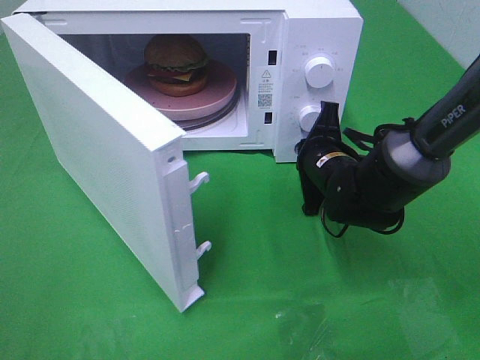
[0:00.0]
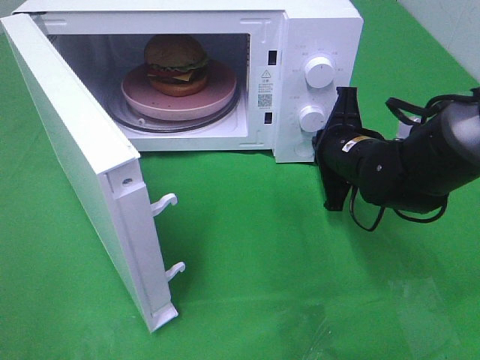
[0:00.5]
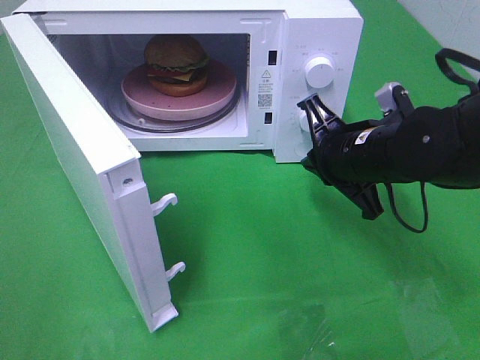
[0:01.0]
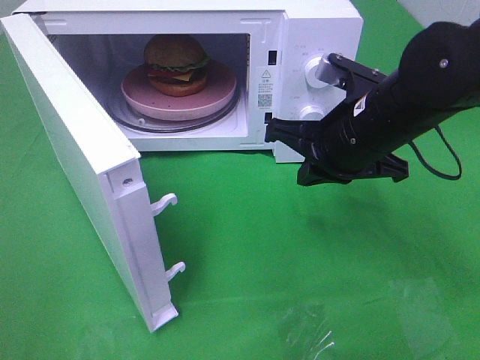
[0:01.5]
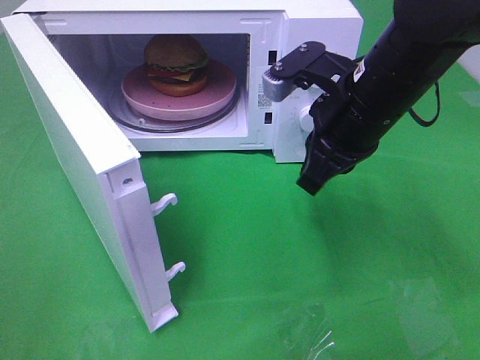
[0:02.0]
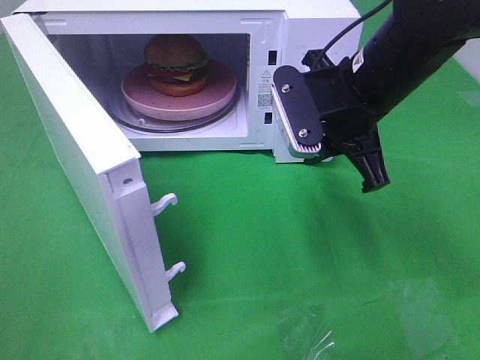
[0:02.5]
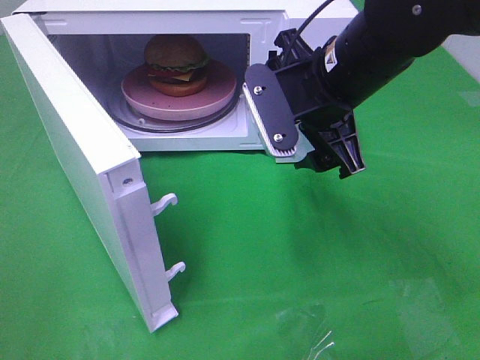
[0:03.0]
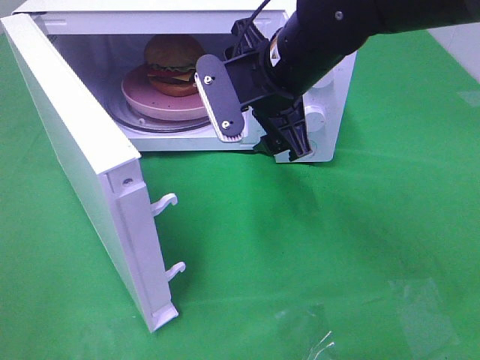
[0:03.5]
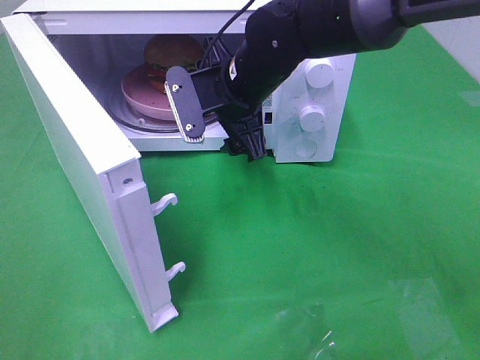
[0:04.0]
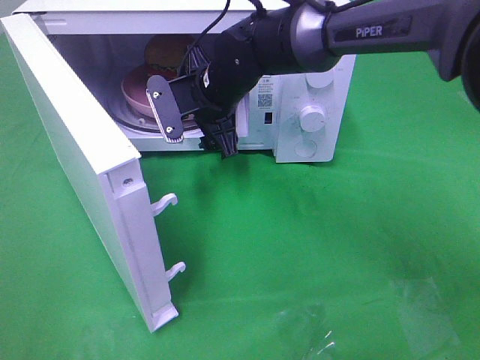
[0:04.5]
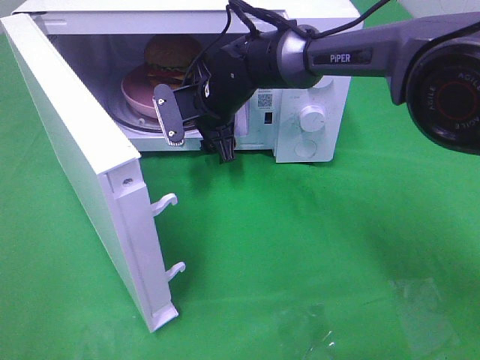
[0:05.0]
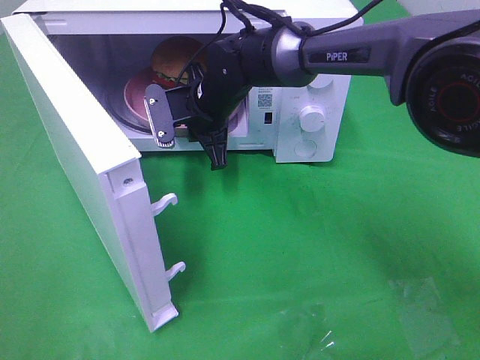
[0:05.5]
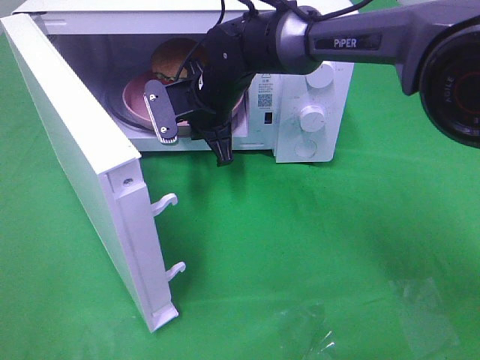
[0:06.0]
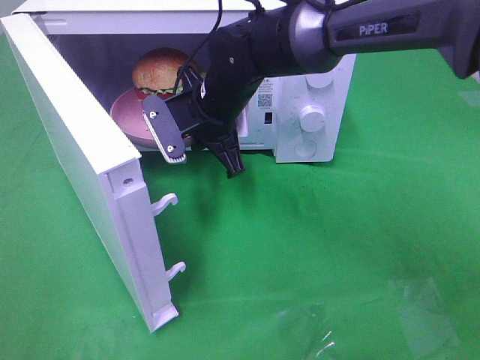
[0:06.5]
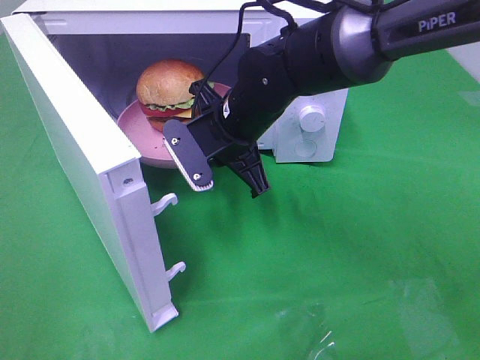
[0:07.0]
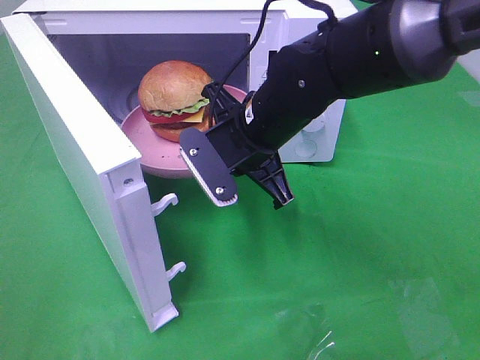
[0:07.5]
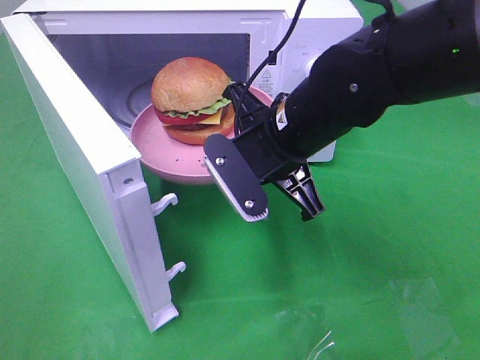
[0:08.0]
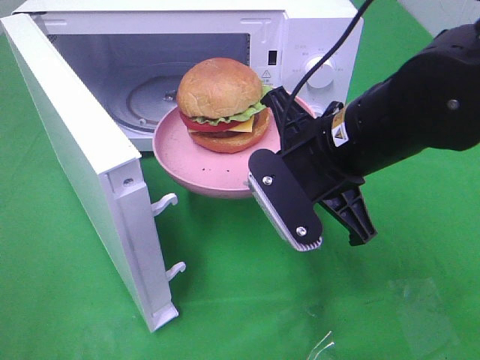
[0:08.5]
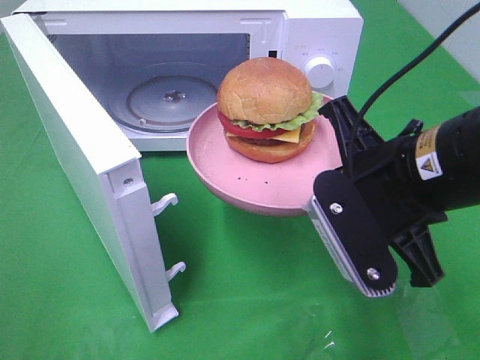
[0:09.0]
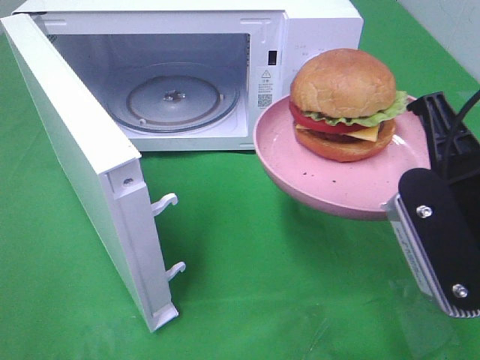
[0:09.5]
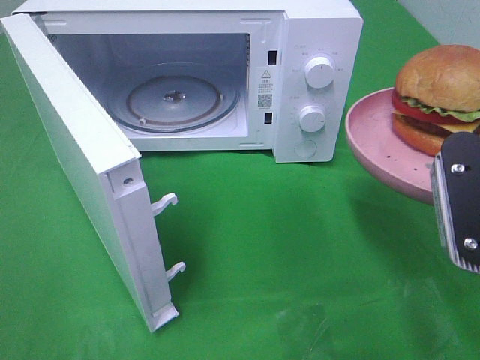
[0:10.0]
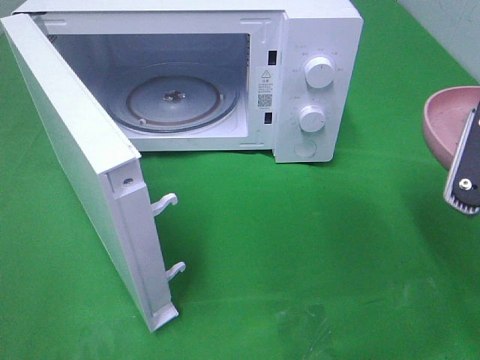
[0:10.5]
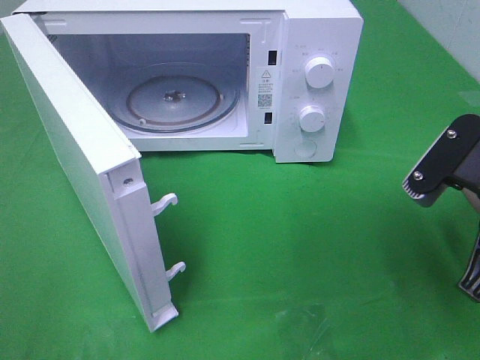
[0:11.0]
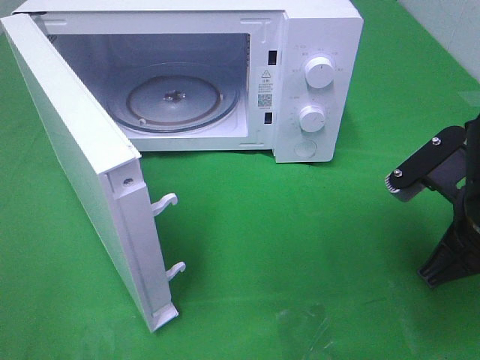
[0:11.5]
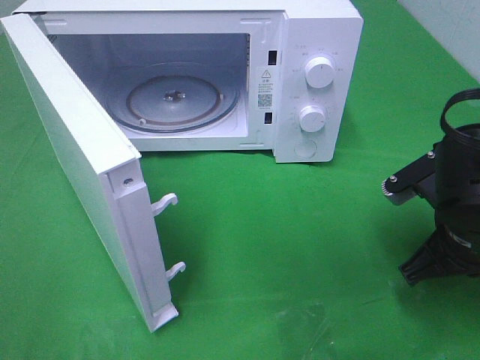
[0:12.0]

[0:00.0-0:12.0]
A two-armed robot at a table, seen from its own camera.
Task of the whole recording: Heat the burger.
Step, 0:01.5 to 0:05.5: Right hand: grab the plate with the hamburger.
0:00.0 to 0:02.0: The right gripper moves upward and backward, approximately 15 cm.
0:02.0 to 0:04.0: The right gripper moves to the left and forward, some 15 cm, and opens its fingers.
0:04.0 to 0:06.0: The right gripper moves roughly 5 cm, and closes up.
0:06.0 to 0:08.0: The right gripper heads backward and to the right, covering roughly 15 cm.
0:08.0 to 0:10.0: The right gripper moves to the right, backward and upward, some 20 cm.
0:10.0 to 0:12.0: The right gripper heads downward and forward, covering about 15 cm.

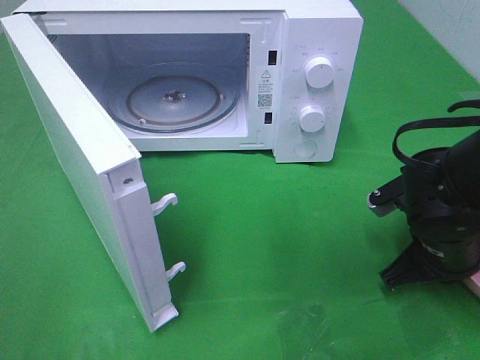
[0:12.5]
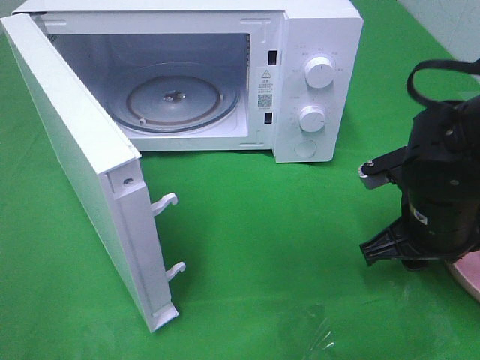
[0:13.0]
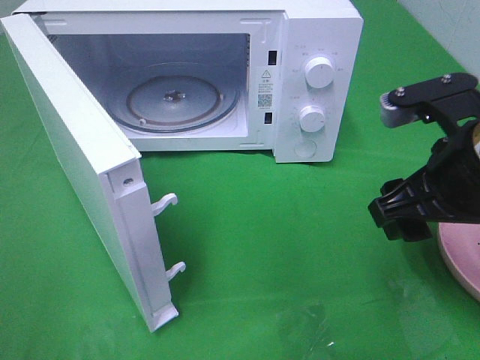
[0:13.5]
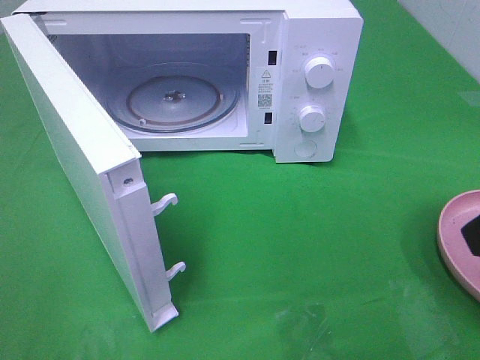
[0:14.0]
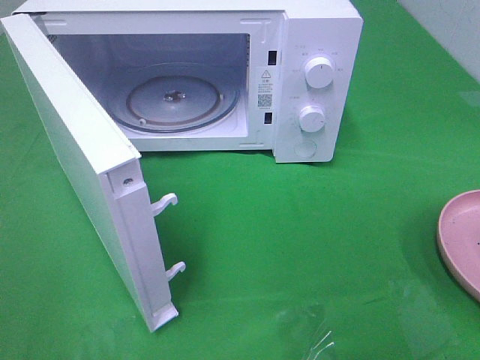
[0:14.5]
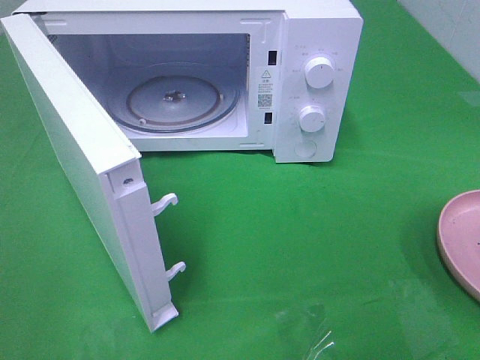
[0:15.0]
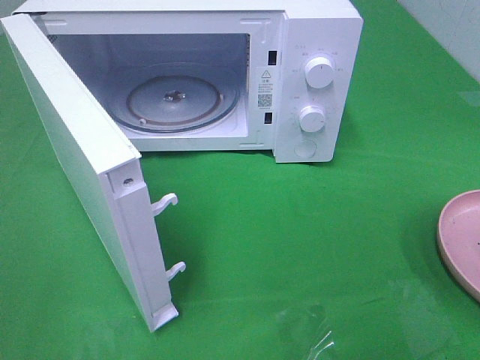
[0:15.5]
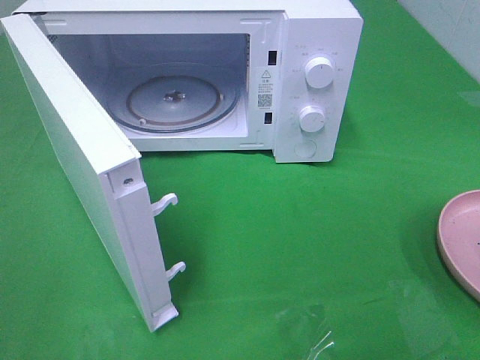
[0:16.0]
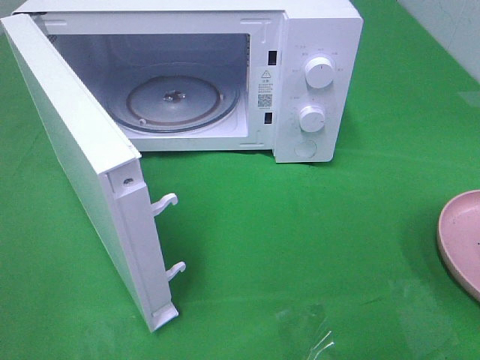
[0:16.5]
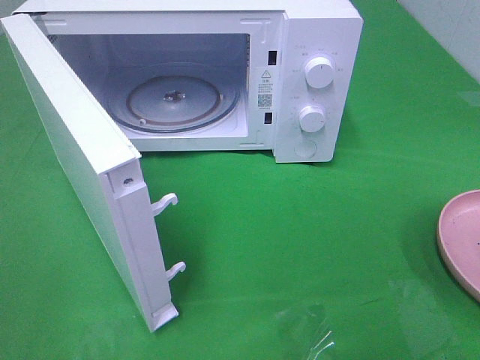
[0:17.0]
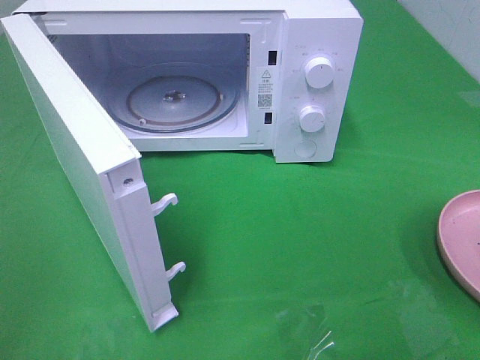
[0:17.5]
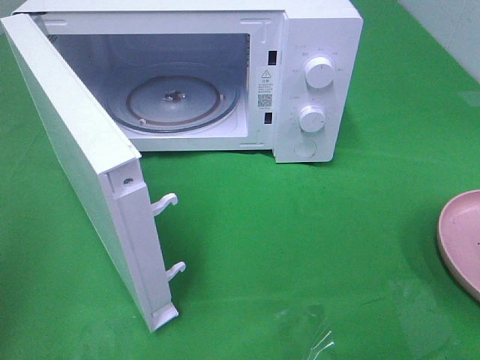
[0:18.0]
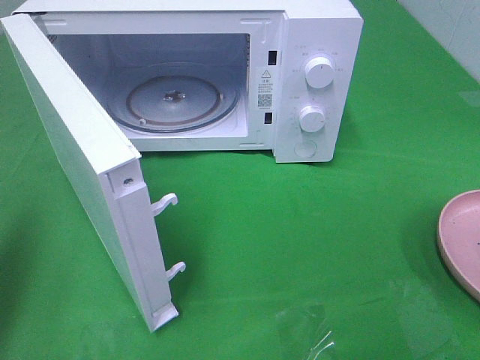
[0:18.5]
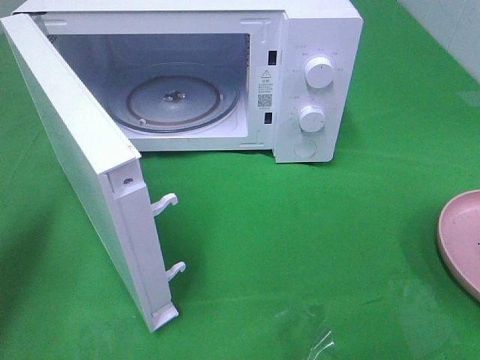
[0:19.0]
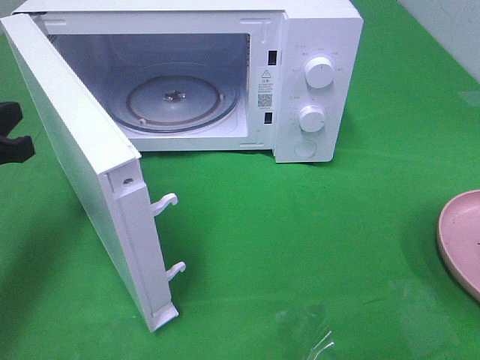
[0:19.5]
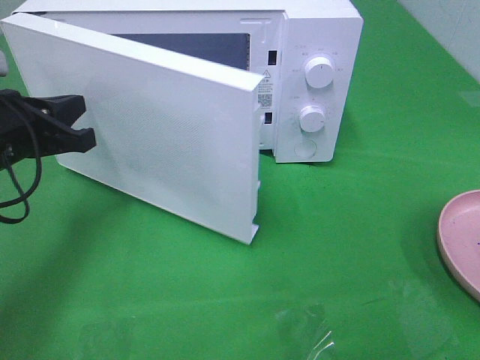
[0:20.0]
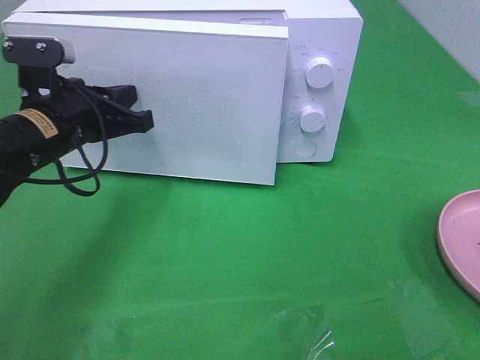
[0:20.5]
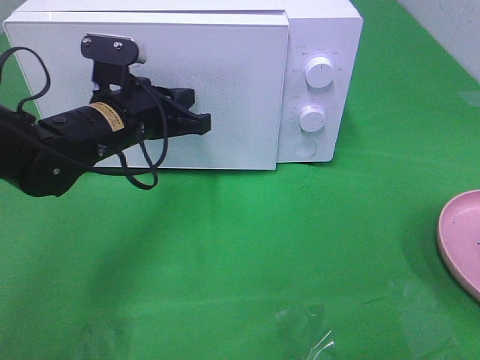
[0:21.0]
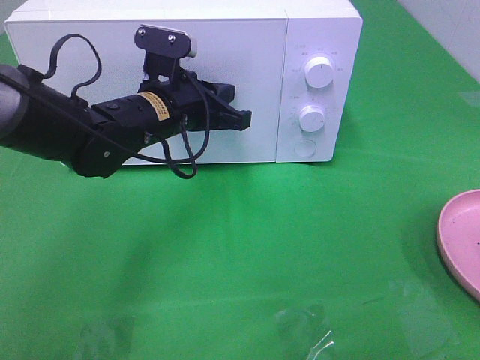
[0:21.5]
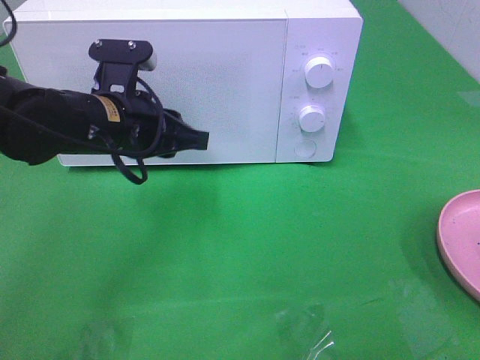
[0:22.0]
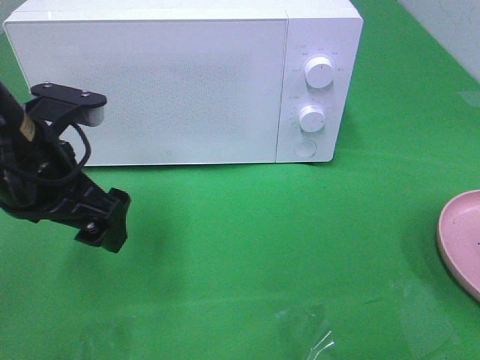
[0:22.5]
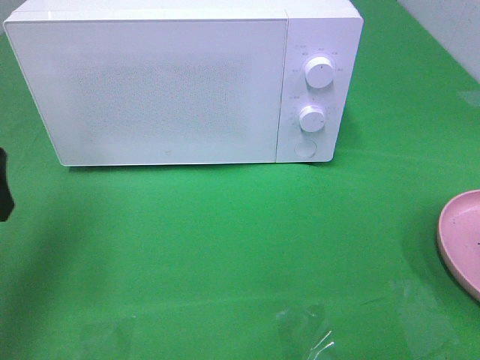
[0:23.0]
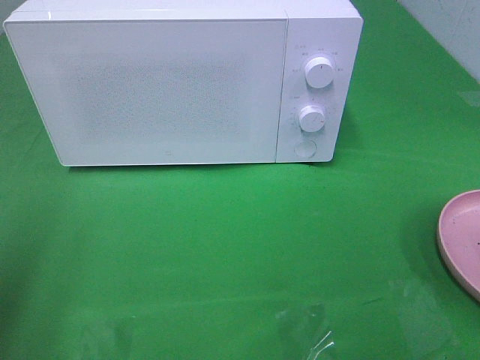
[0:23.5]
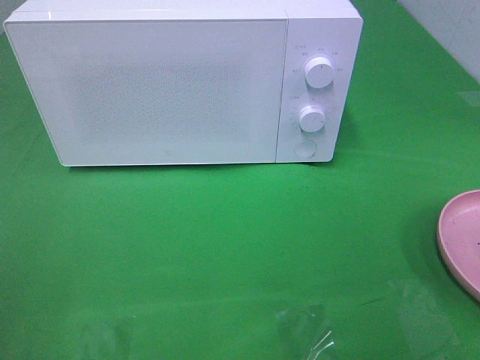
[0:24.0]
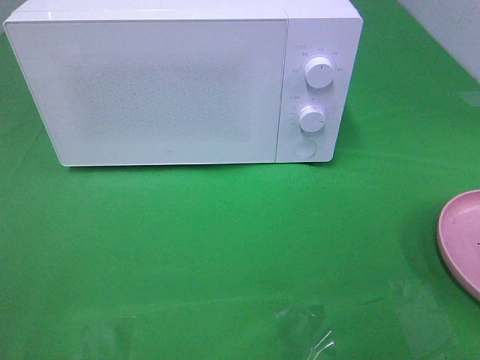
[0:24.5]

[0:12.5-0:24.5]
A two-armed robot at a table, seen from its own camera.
Task of the whole recording: Heat the burger.
Step, 0:13.5 to 0:22.0: Left hand: close the microwave door.
0:12.5 to 0:14.5: The right gripper is displaced upward and backward by approximately 30 cm, and opens its fingers.
0:16.5 to 0:18.5: The left gripper travels forward by roughly 15 cm, and closes up.
0:18.5 to 0:20.5: The left gripper is displaced forward, to the right and downward by approximately 25 cm.
0:20.5 to 0:22.5: The left gripper is displaced backward and upward by approximately 10 cm, and opens.
0:22.5 to 0:24.5: The left gripper goes about 30 cm backward and to the left.

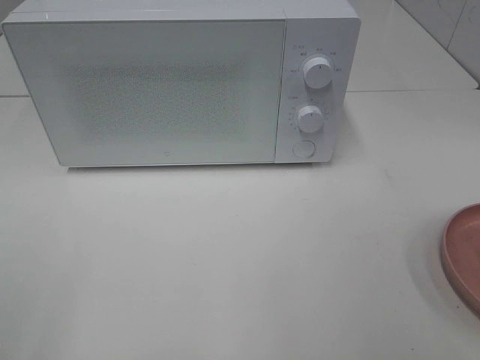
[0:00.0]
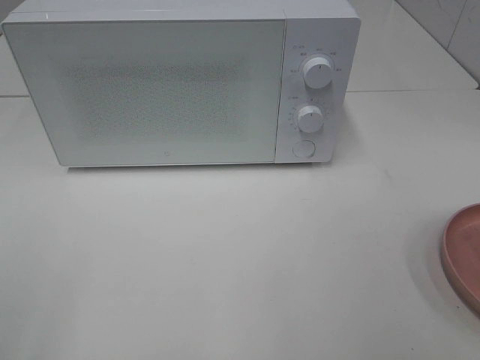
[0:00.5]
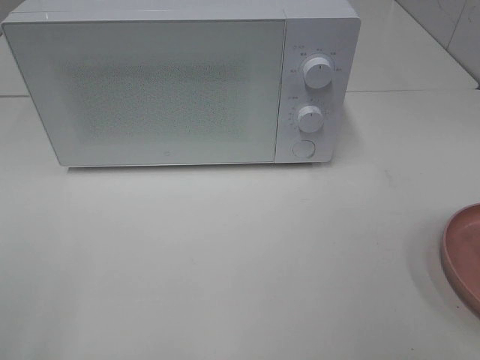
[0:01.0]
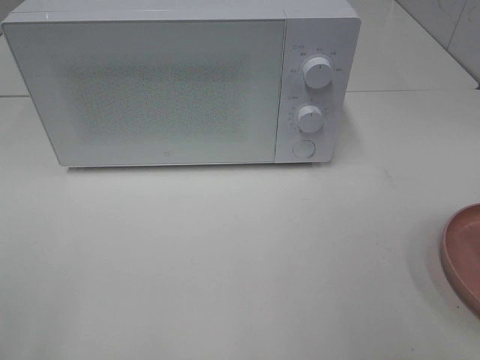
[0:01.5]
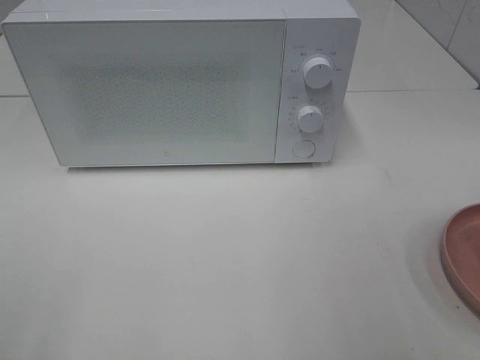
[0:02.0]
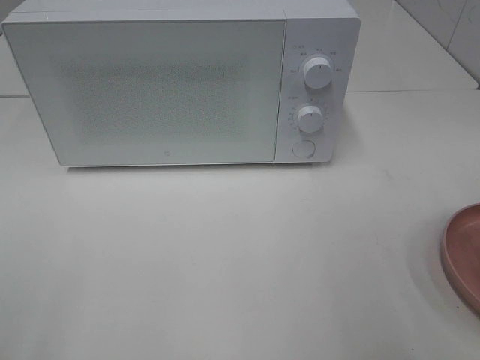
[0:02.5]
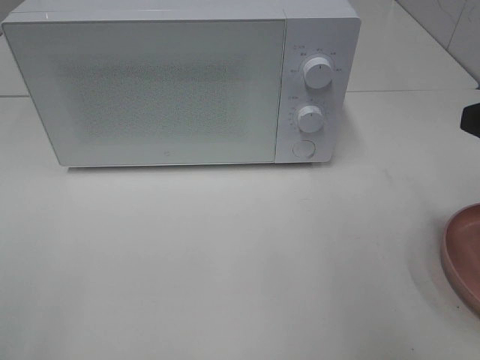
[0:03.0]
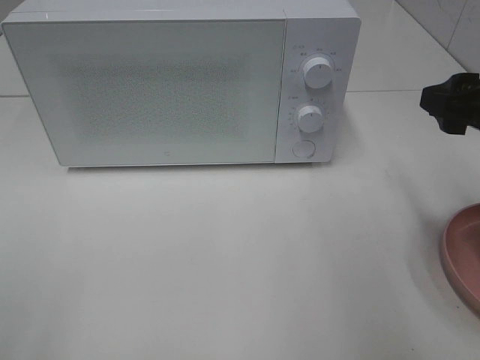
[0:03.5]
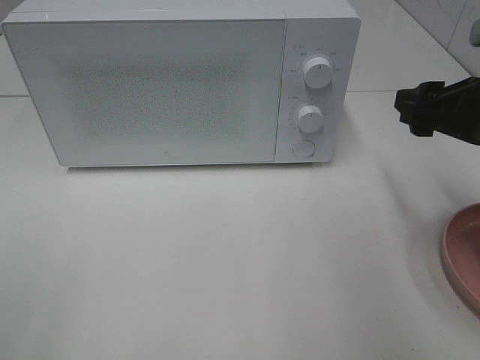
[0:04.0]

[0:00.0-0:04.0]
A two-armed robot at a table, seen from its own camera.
Task of the whole recording: Heat the burger.
0:02.0 to 0:04.0: The right gripper heads forward and downward, covering some 20 cm.
